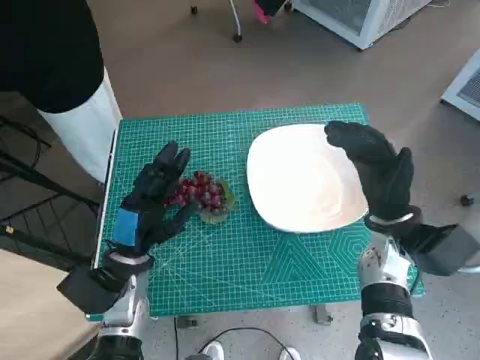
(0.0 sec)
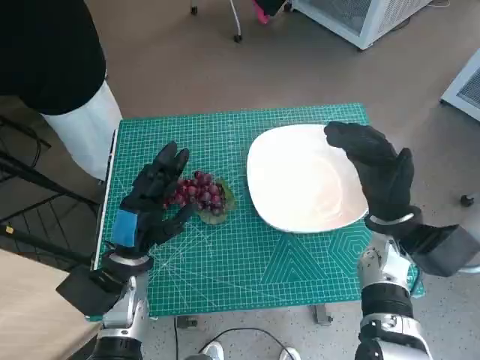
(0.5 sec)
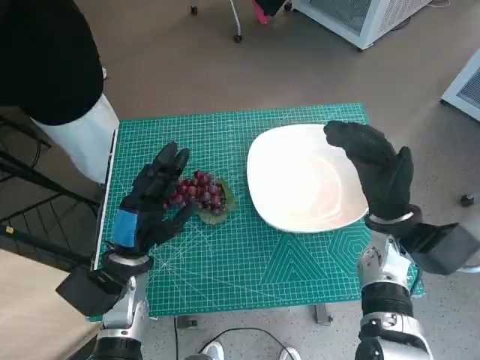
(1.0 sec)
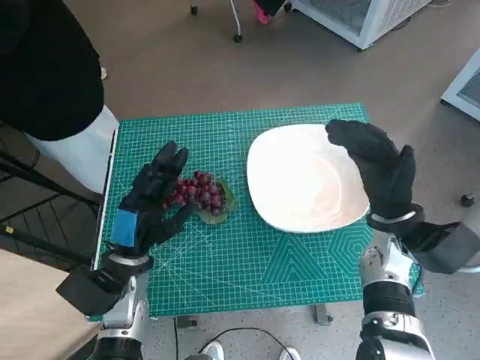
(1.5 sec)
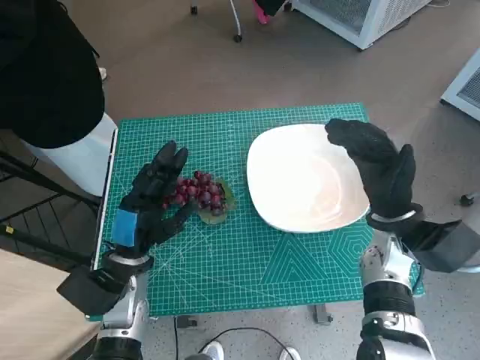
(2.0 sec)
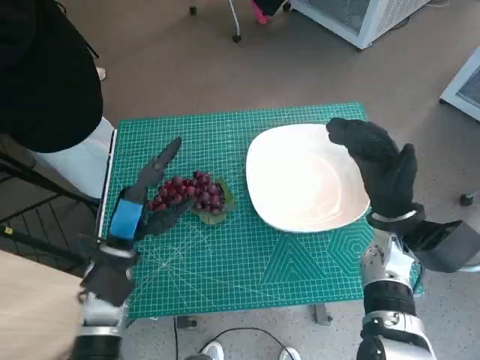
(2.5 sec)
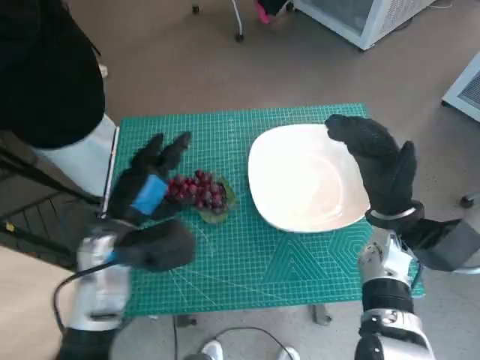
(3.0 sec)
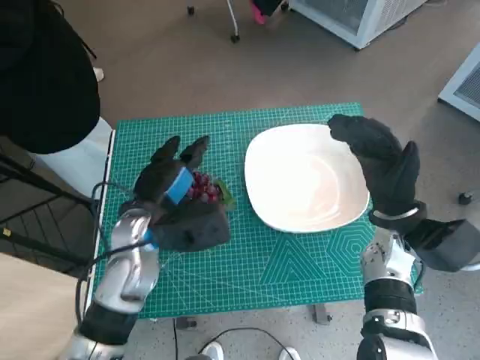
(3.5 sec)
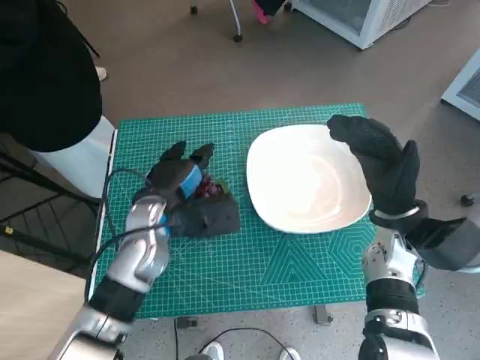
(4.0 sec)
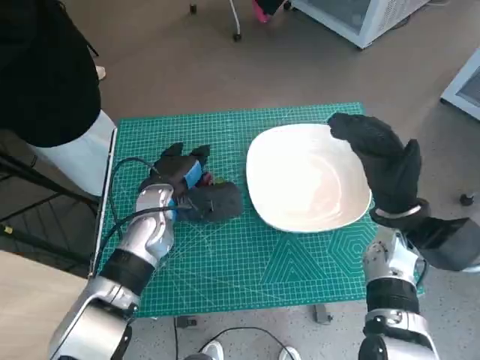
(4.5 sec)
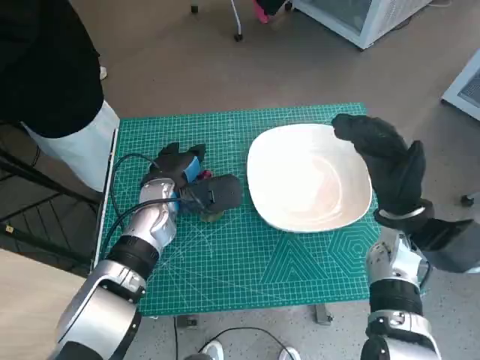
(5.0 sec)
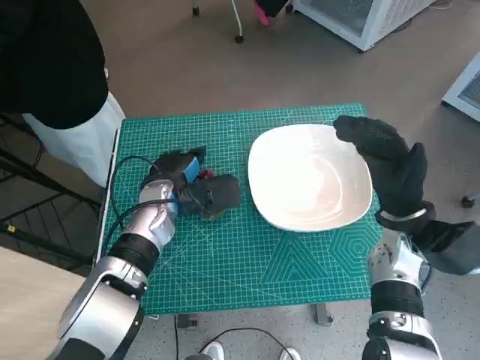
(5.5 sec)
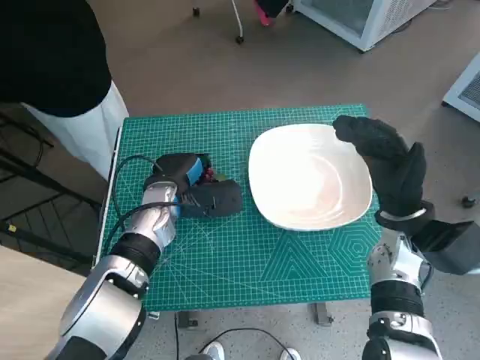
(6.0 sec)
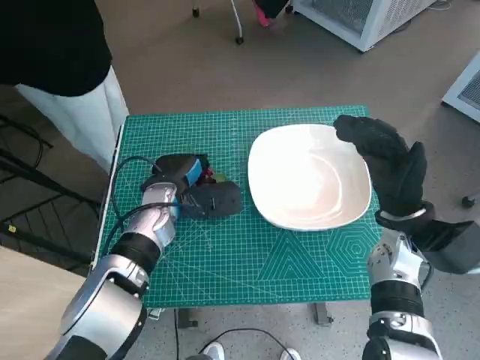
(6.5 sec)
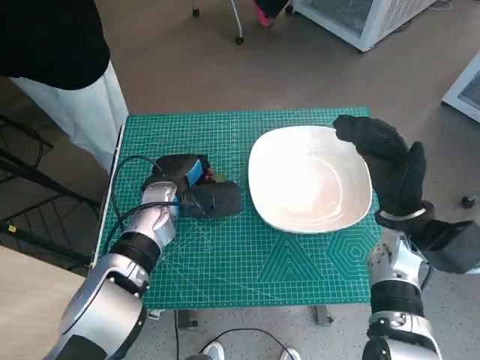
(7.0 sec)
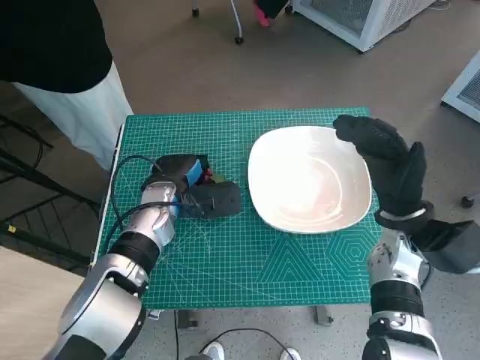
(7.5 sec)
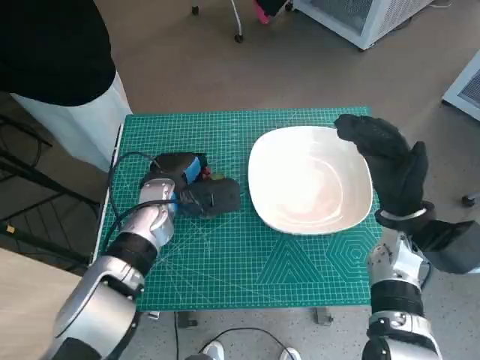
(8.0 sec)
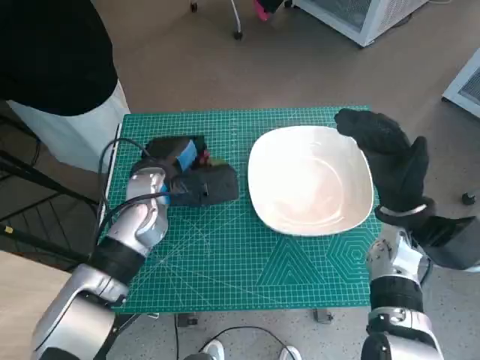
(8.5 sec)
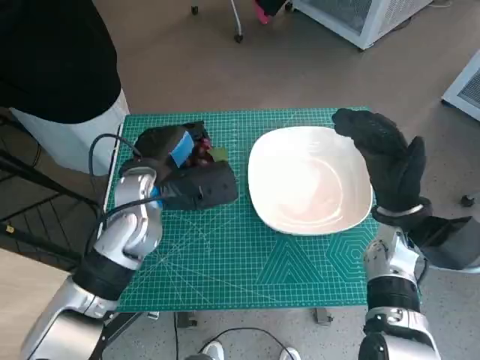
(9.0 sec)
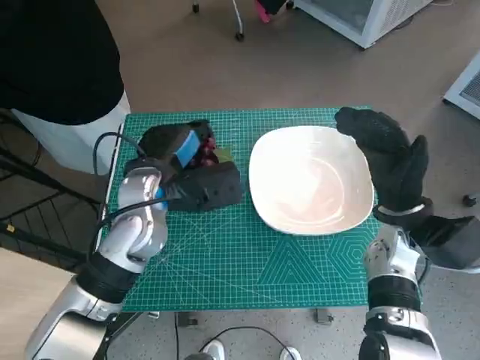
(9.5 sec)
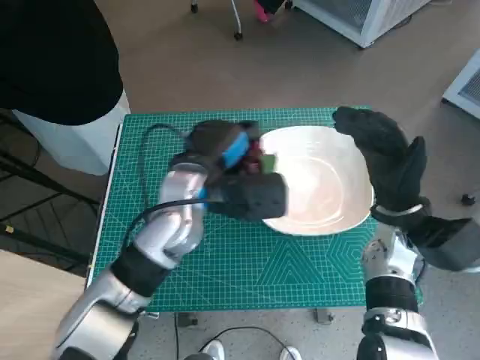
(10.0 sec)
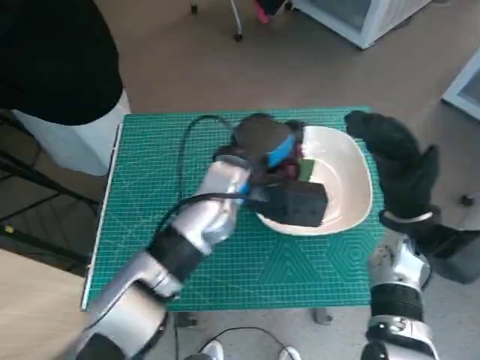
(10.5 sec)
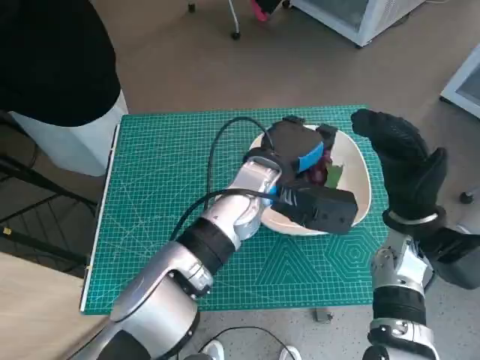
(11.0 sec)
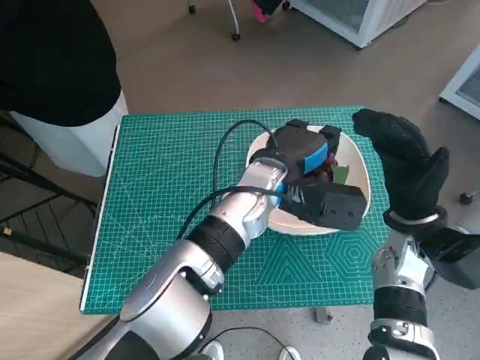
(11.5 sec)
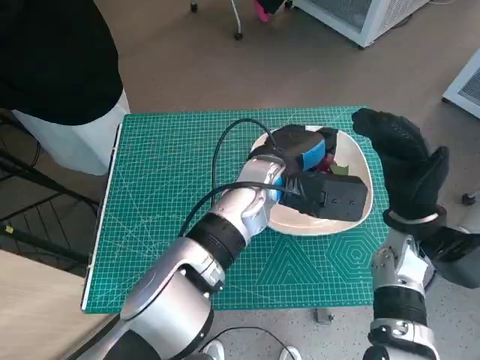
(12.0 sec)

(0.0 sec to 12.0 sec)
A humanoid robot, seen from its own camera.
Task of the whole recording: Pick up the grapes and put them on the plate.
Step, 0.0 sec - 7.5 sec: Grasp the grapes with left hand.
2.0 sec - 4.0 sec: The left hand moves forward and upward, roughly 10 cm.
4.0 sec - 6.0 sec: The left hand moves about 5 cm.
6.0 sec - 8.0 sec: Neither hand changes place.
8.0 sec - 10.0 sec: The left hand is displaced upward and to the right by about 10 cm.
10.0 sec - 12.0 sec: The left hand moves to the right, about 10 cm.

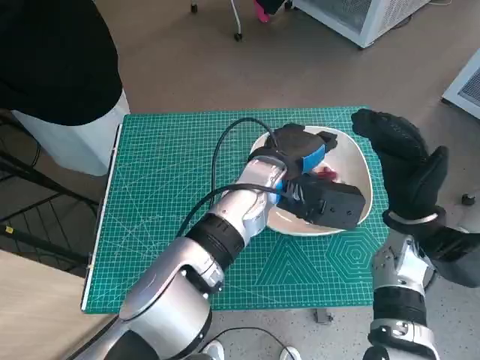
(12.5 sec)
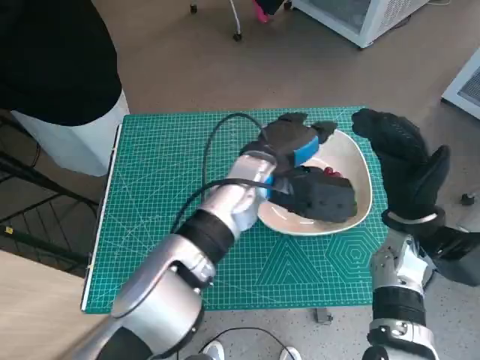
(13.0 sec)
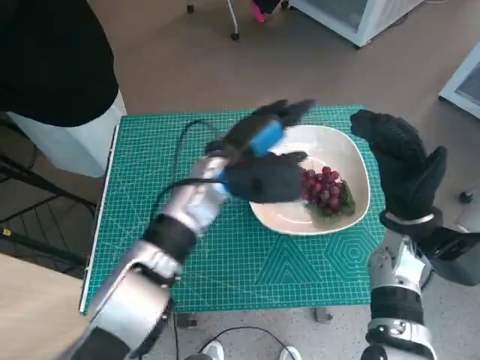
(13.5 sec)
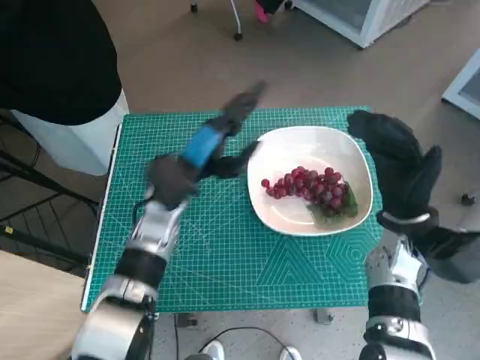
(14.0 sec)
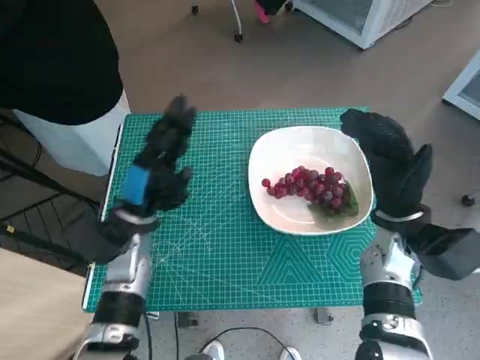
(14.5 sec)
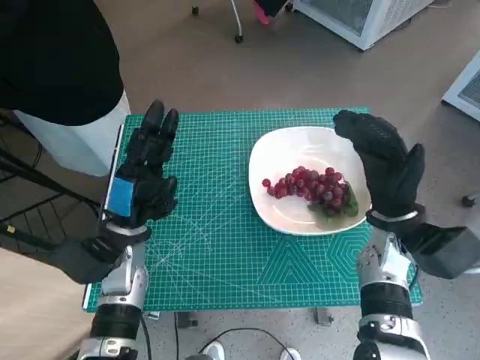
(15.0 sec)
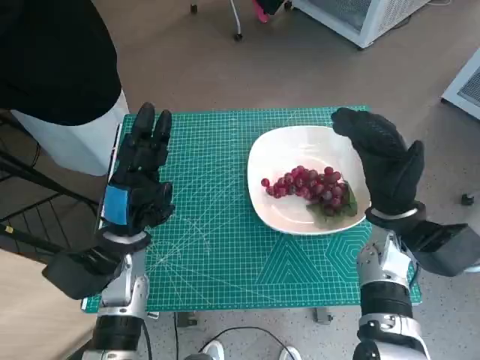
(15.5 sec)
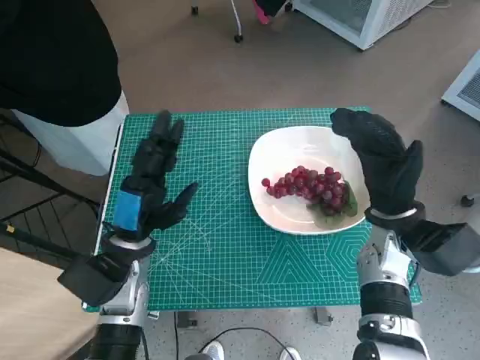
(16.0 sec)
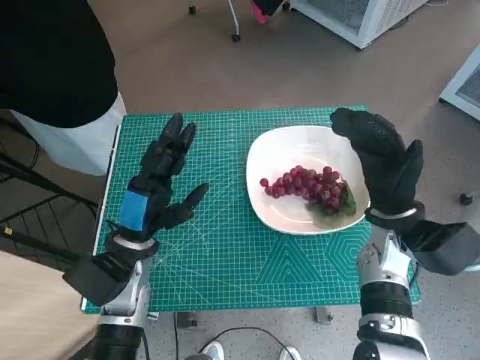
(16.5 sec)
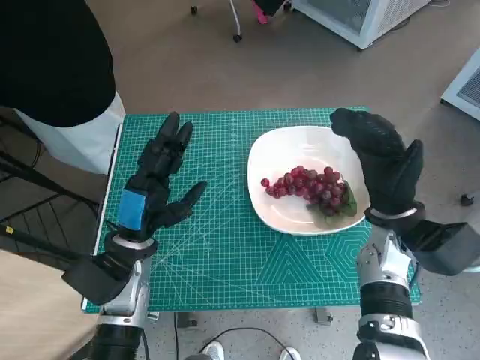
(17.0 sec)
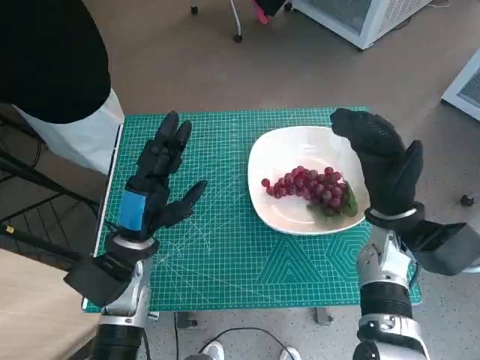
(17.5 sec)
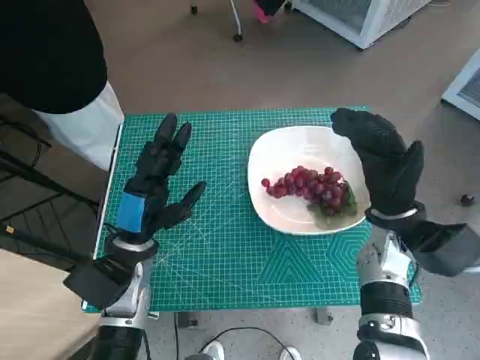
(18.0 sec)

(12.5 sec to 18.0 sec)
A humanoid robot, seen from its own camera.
Task of the whole recording: Pick up the grapes and put them on the plate.
12.5 sec - 14.5 sec: The left hand heads to the left, covering roughly 20 cm.
14.5 sec - 16.0 sec: The hands make only small movements.
16.0 sec - 18.0 sec: The two hands keep their place.
